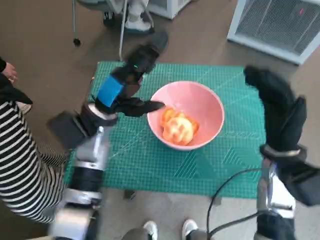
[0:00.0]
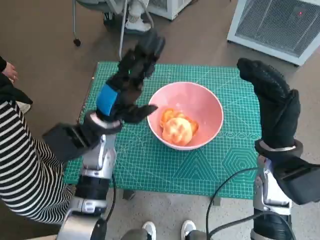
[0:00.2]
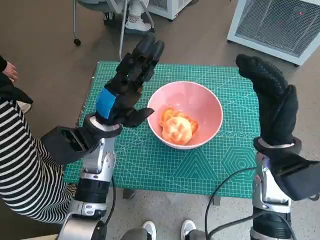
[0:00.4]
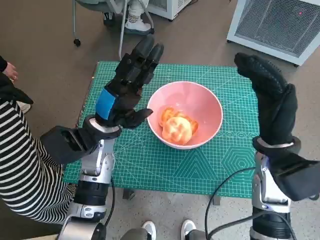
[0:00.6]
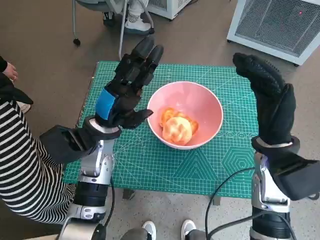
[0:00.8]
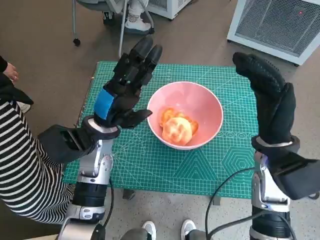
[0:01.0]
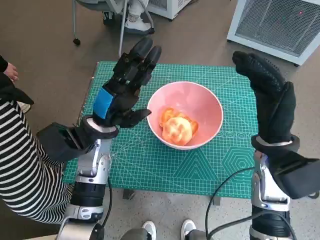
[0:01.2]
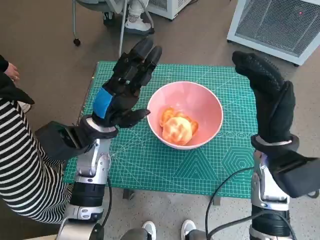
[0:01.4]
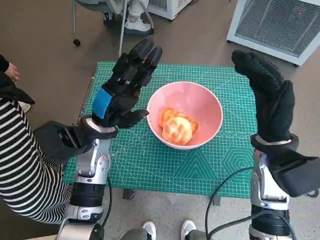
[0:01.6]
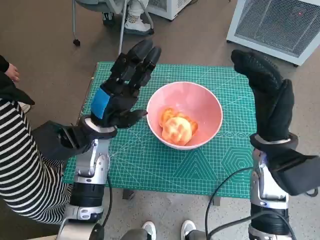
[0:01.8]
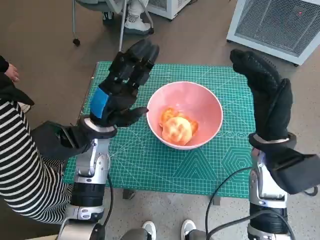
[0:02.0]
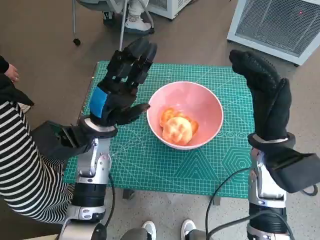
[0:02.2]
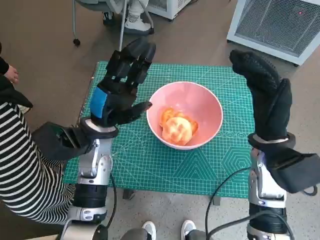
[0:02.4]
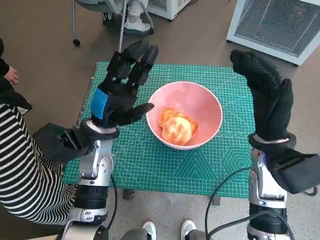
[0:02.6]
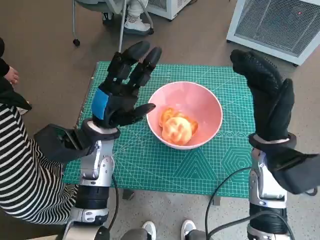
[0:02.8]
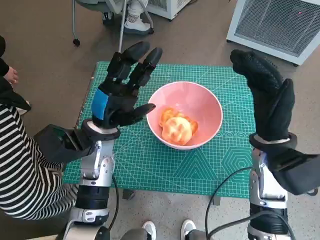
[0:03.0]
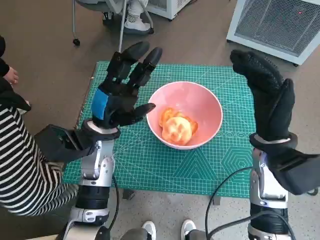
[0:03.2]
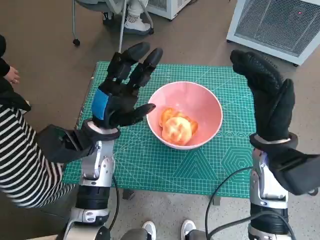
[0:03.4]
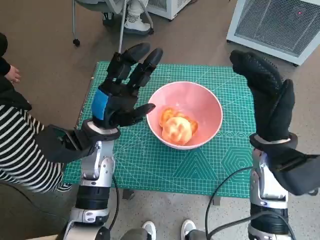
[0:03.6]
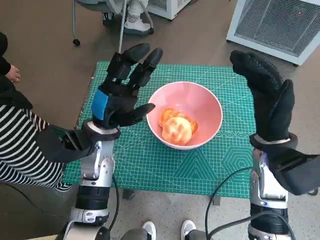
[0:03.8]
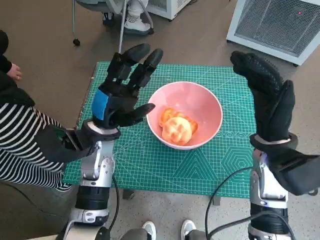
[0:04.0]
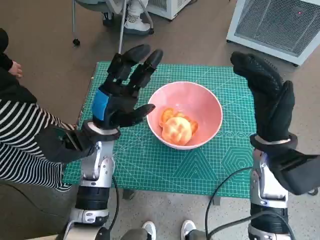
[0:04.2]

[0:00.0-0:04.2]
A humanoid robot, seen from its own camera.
Task of the whole recording: Push the bowl into the center of the table and put the bread into the bowl.
0:01.4 to 0:02.8: There are only small adjustments of the hands.
0:02.8 to 0:04.2: Both hands stay put.

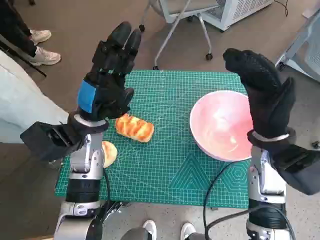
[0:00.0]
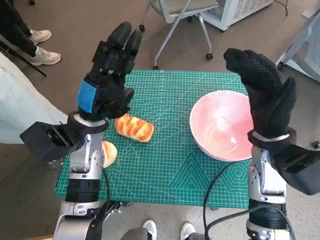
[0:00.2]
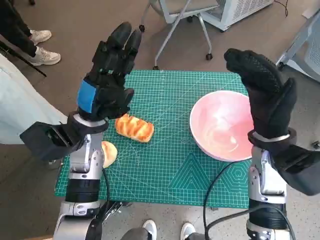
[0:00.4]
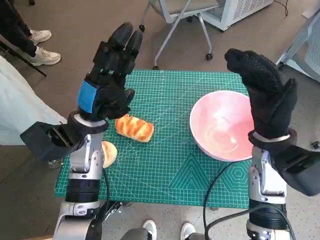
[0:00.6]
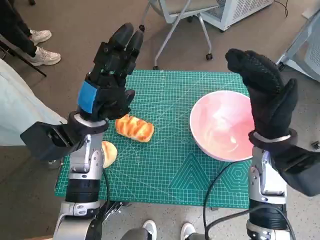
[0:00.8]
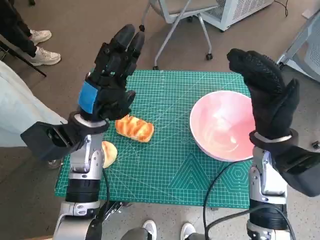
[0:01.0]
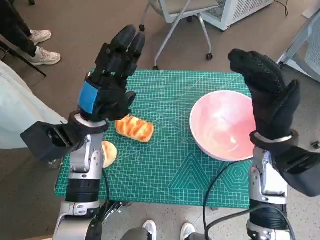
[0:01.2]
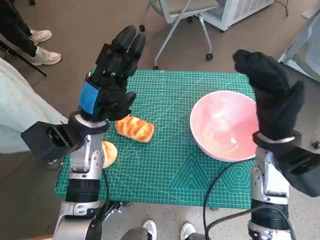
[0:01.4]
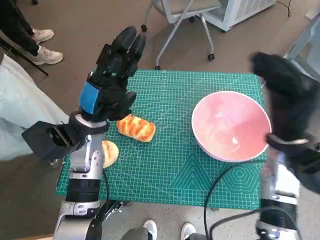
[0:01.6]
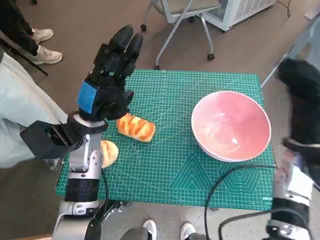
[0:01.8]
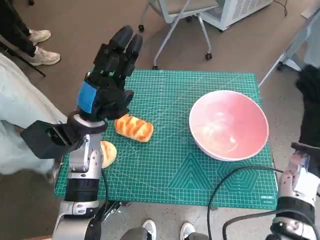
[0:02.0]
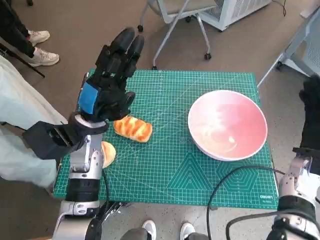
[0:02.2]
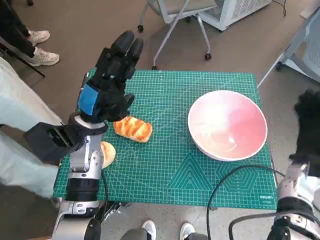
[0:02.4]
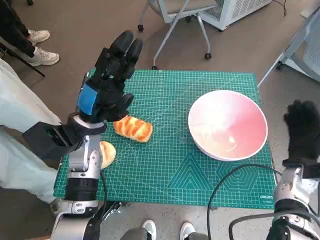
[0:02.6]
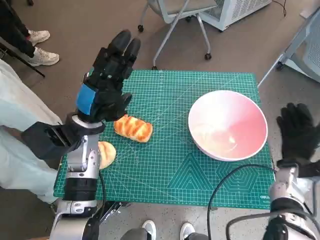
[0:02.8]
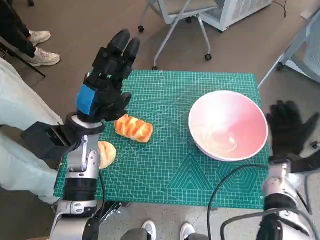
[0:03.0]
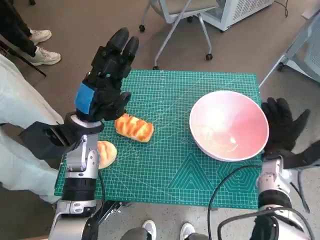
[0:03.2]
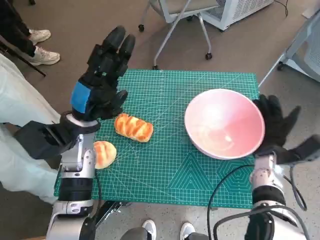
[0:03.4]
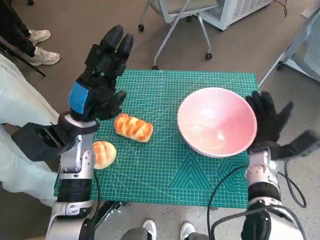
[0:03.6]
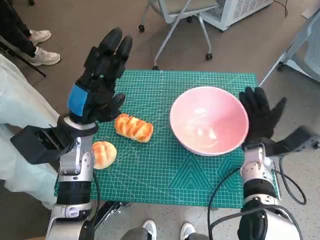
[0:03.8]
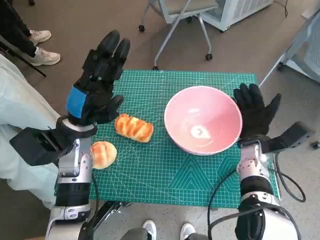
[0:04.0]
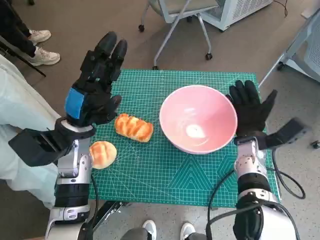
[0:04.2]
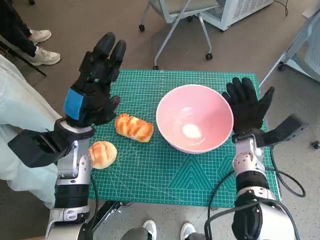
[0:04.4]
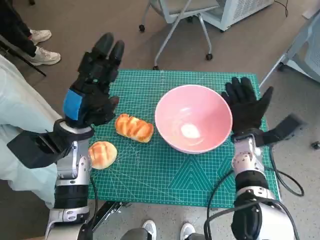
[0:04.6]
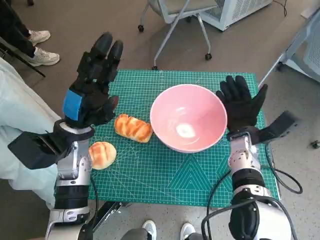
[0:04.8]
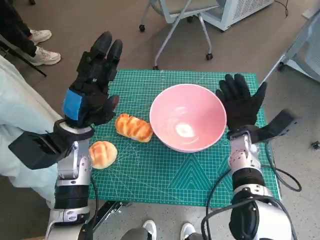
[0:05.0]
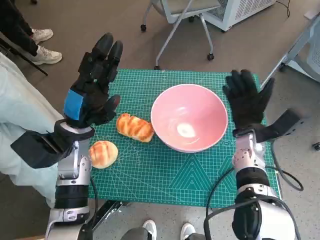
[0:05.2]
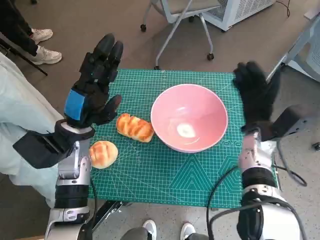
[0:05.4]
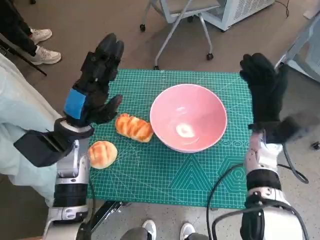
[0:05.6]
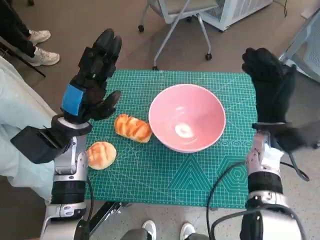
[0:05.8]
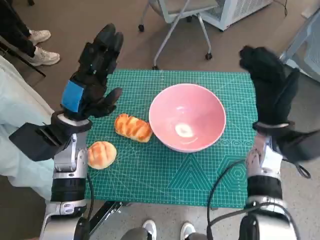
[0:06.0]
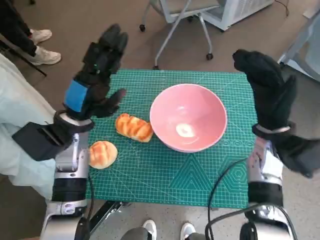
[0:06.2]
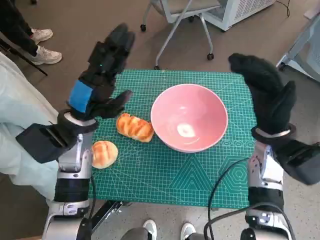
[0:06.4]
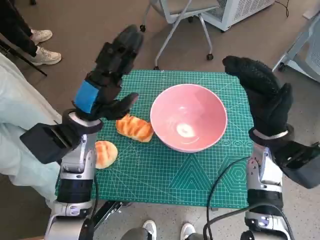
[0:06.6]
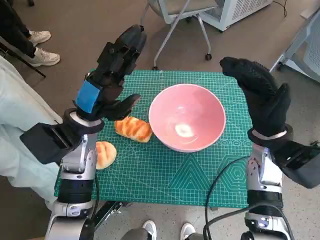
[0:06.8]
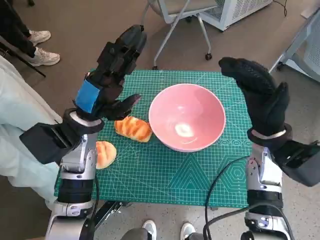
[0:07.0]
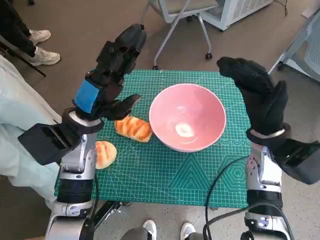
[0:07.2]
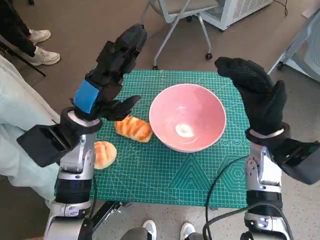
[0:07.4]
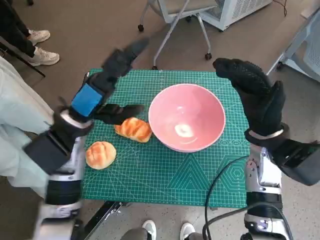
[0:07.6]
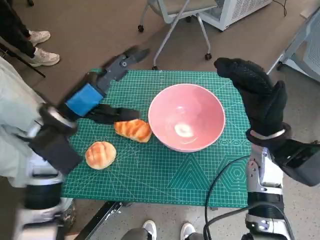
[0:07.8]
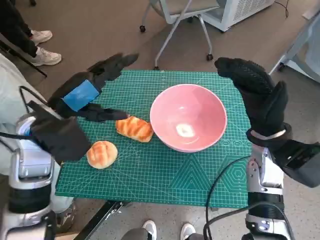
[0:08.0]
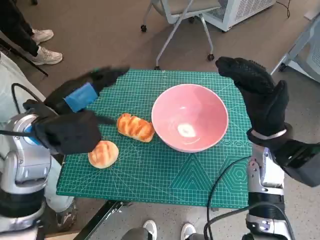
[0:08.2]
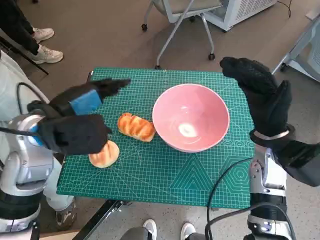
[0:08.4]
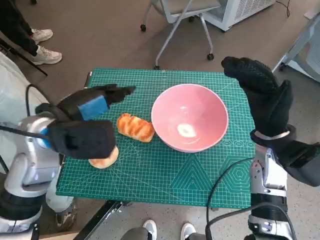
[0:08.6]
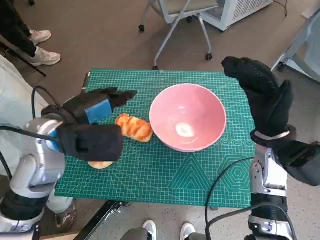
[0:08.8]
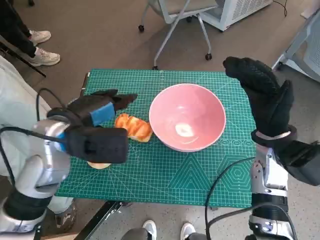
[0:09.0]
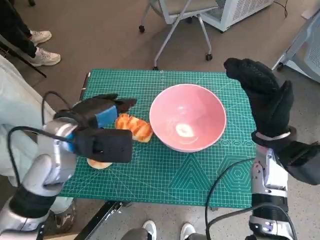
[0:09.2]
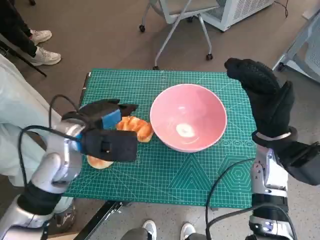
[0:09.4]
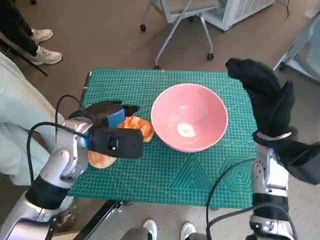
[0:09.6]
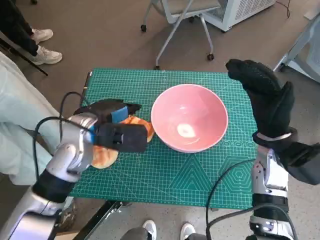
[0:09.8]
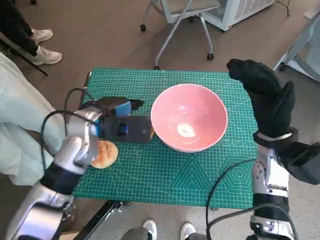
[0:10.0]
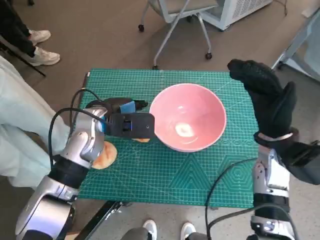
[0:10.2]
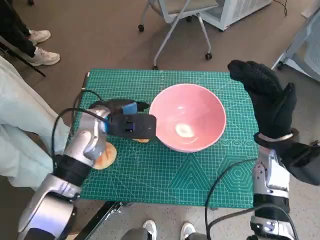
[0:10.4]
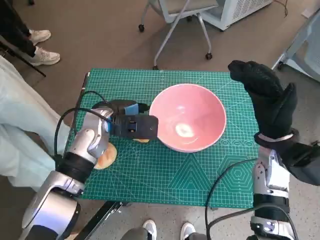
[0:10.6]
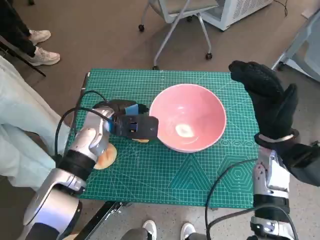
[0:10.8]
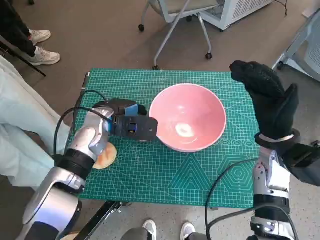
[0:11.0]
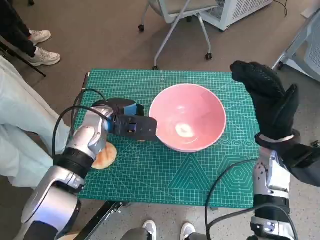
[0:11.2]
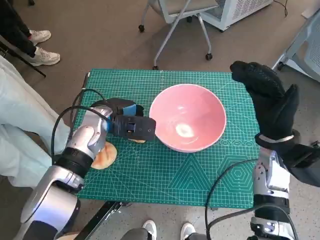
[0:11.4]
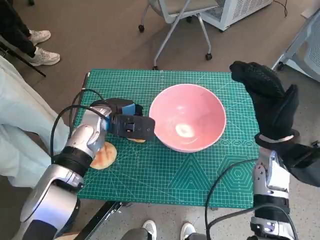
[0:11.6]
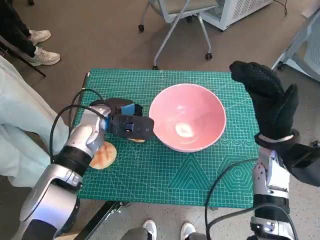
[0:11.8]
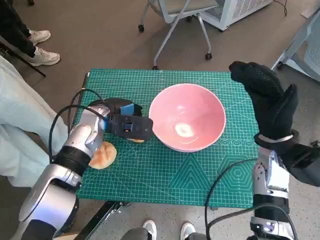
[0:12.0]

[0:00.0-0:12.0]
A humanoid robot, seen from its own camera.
Task of the whole recording: Push the bowl into the center of the table and put the bread into the bowl.
Step, 0:00.0 to 0:05.6: Move the pink bowl to the center of table with right hand.
Step, 0:06.0 to 0:11.4: Grasp the long bread with left hand.
0:01.6 to 0:03.0: The right hand travels downward and to the right by approximately 15 cm.
0:03.0 to 0:04.4: The right hand travels to the left by roughly 10 cm.
0:04.4 to 0:06.0: The right hand moves upward, some 5 cm.
0:09.0 to 0:10.4: The left hand shifts approximately 10 cm forward and downward.
0:10.4 to 0:12.0: The hands make only small movements.

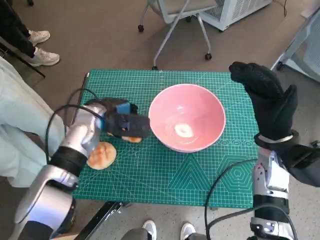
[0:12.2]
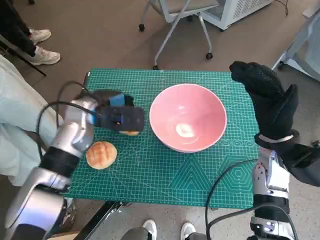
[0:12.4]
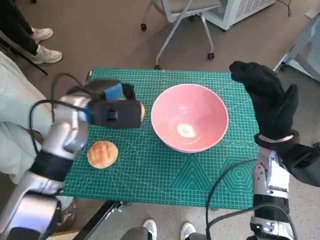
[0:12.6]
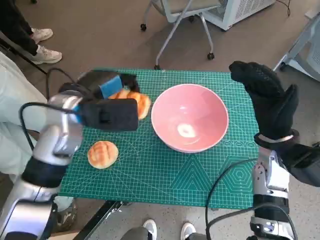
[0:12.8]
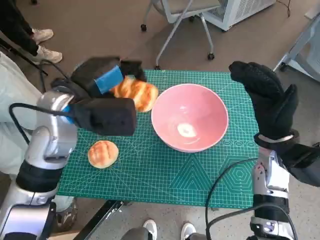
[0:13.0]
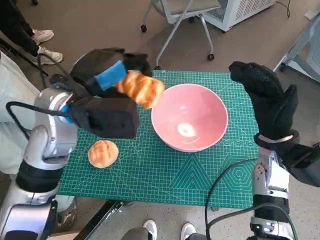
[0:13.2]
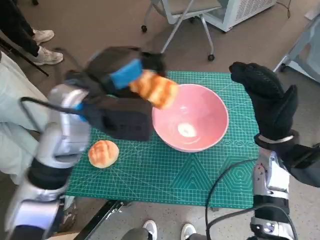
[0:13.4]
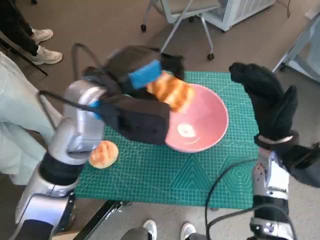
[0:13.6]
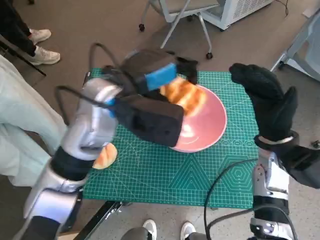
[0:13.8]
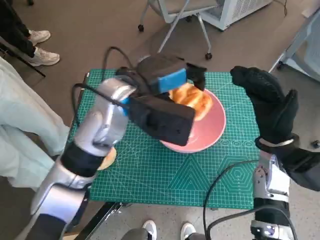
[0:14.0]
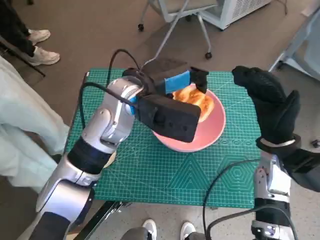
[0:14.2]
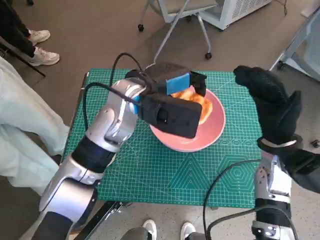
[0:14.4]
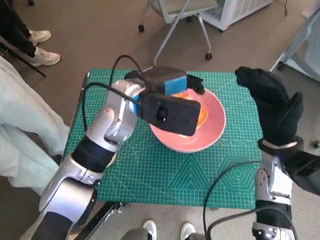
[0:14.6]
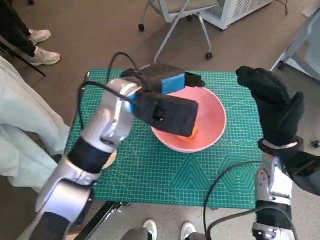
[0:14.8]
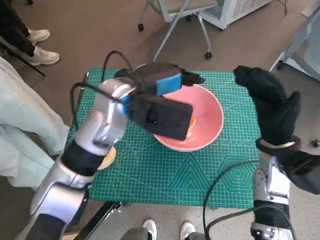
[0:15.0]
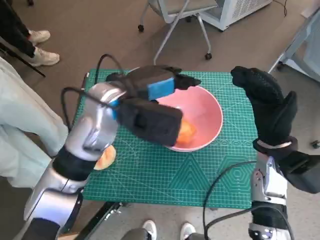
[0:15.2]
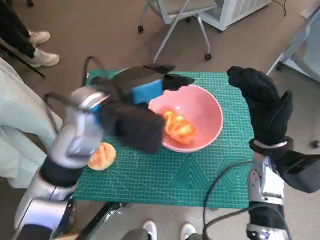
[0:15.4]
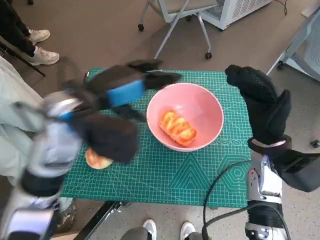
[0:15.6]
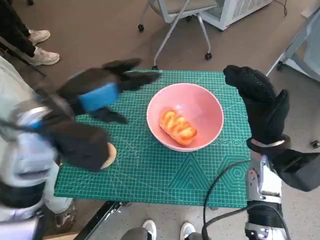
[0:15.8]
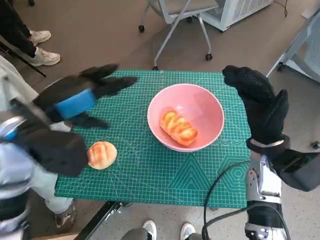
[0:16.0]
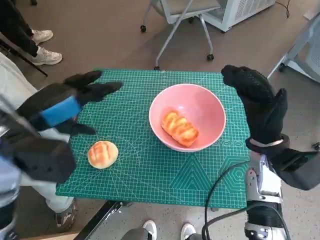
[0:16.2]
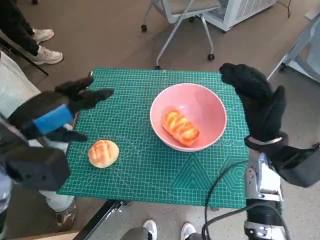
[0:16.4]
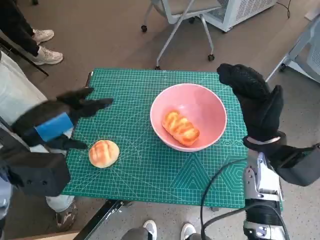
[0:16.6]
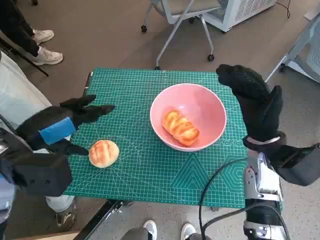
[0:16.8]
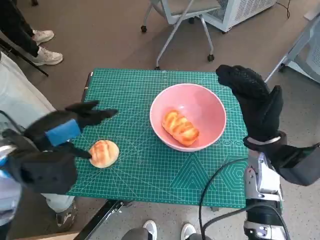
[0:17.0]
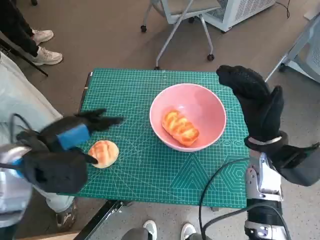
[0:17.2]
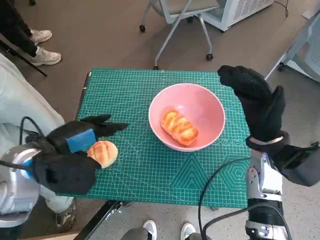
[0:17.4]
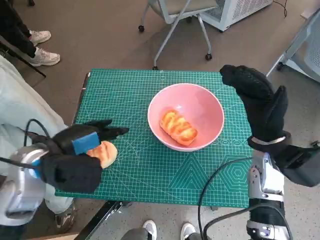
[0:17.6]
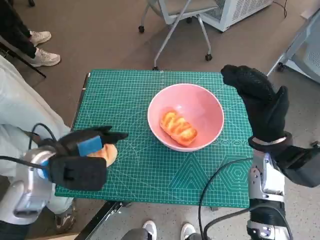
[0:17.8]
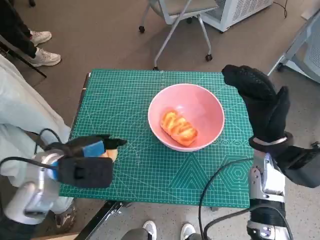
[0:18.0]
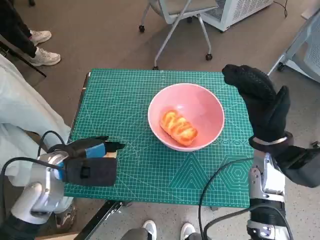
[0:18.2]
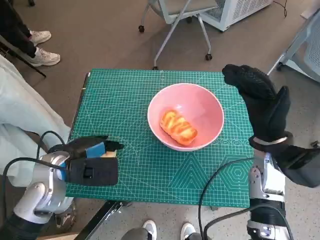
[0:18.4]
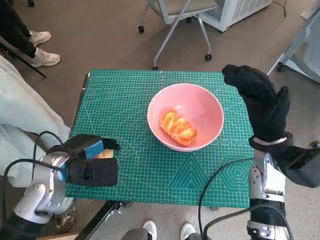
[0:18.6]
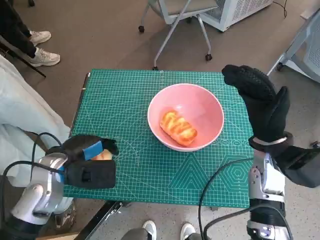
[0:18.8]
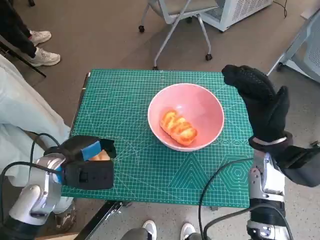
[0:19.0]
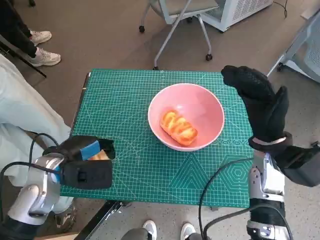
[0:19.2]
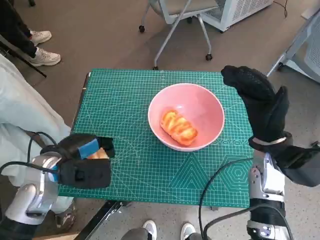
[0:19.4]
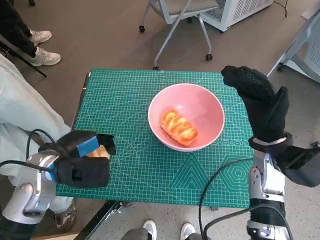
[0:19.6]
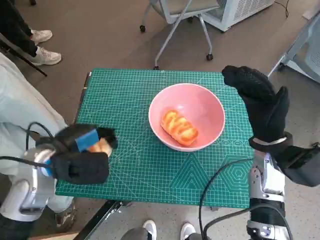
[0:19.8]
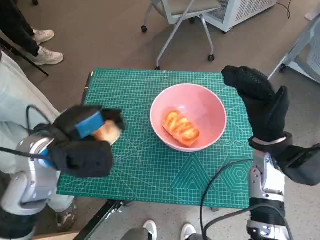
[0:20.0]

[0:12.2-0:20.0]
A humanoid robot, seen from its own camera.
Task of the whole recording: Push the bowl into the center of the table and put the bread into the bowl.
Step, 0:12.2 to 0:15.2: Place the long bread in pink bowl with left hand.
Step, 0:15.4 to 0:18.8: Grasp the round bread with left hand.
0:12.2 to 0:13.8: The left hand heads upward and to the right, covering about 15 cm.
0:15.4 to 0:16.8: The left hand moves to the left and backward, some 15 cm.
0:16.8 to 0:18.4: The left hand is displaced downward by about 10 cm.
0:18.4 to 0:20.0: The left hand is displaced upward by some 5 cm.
